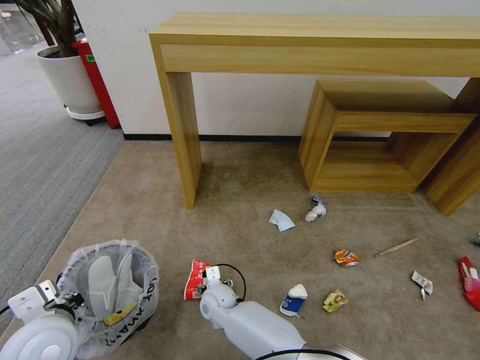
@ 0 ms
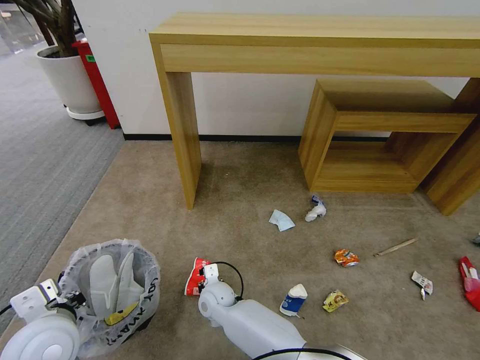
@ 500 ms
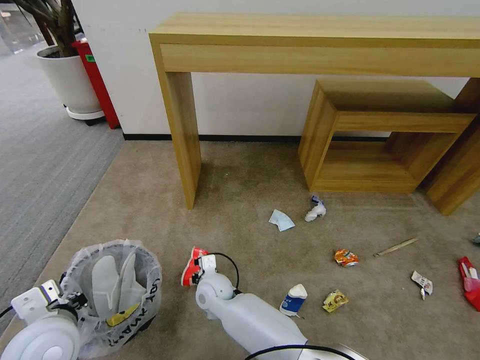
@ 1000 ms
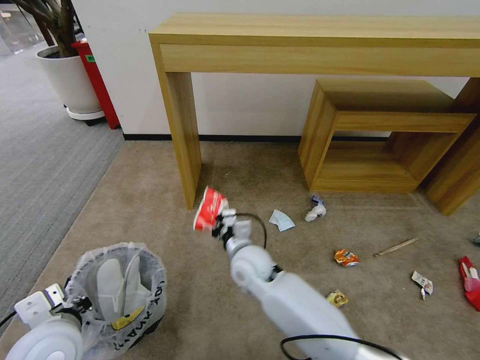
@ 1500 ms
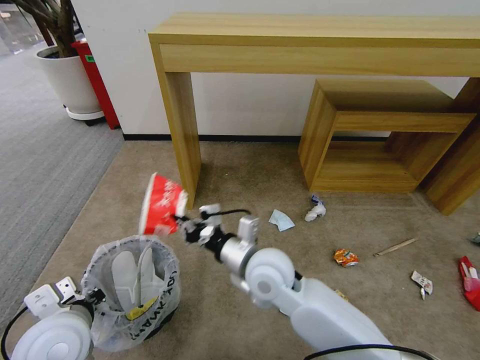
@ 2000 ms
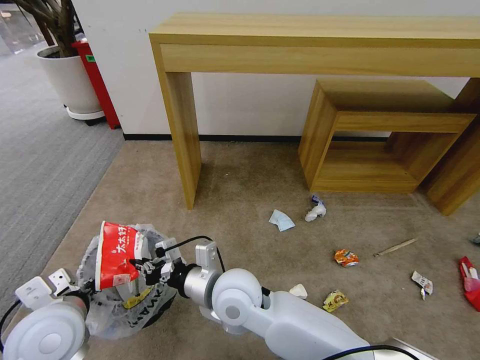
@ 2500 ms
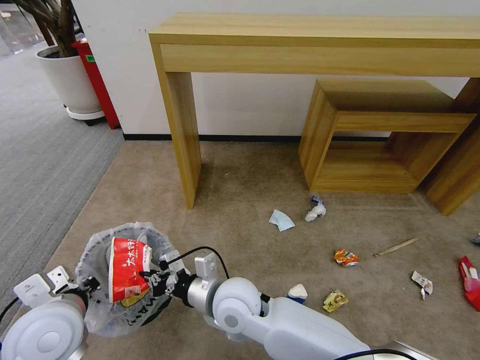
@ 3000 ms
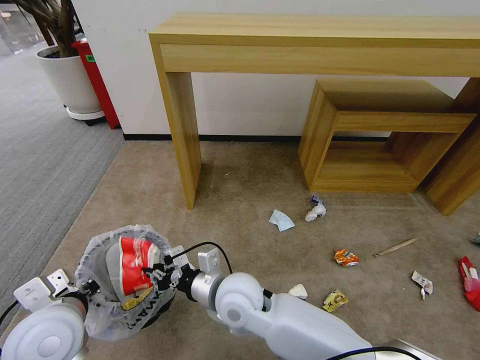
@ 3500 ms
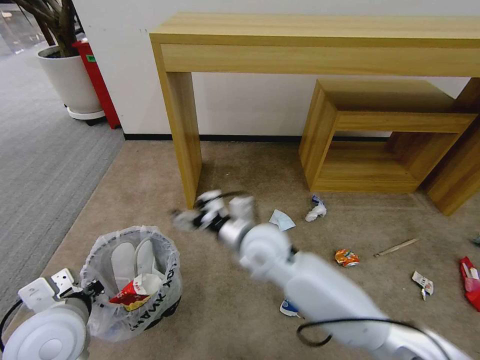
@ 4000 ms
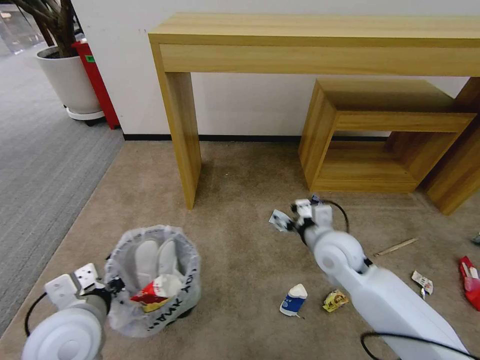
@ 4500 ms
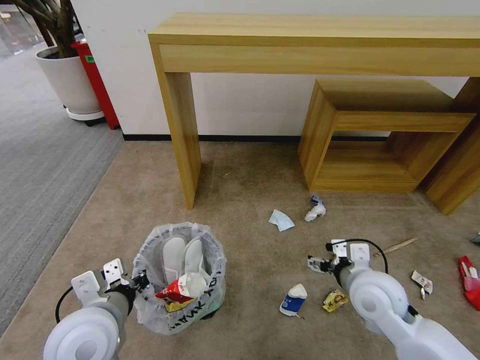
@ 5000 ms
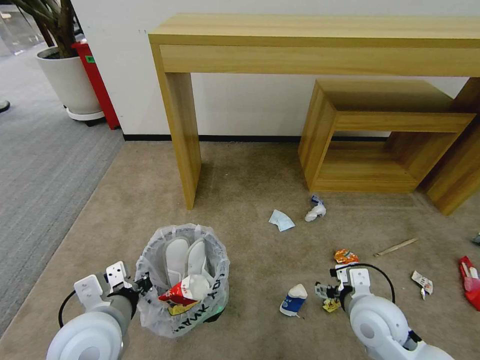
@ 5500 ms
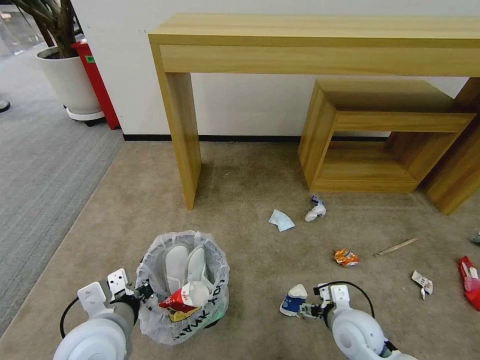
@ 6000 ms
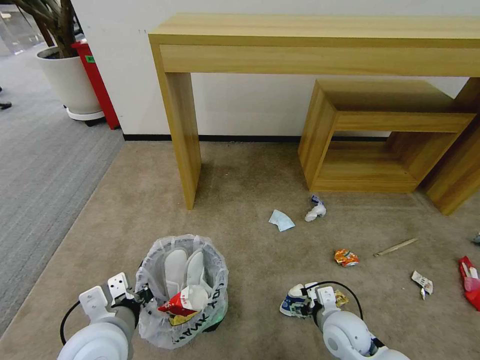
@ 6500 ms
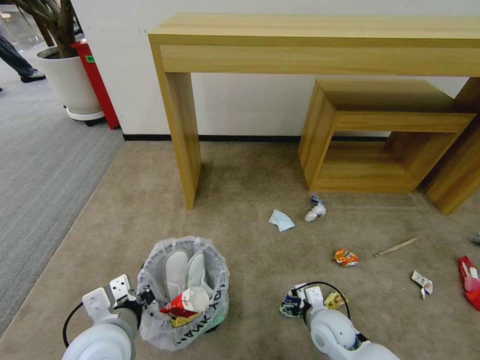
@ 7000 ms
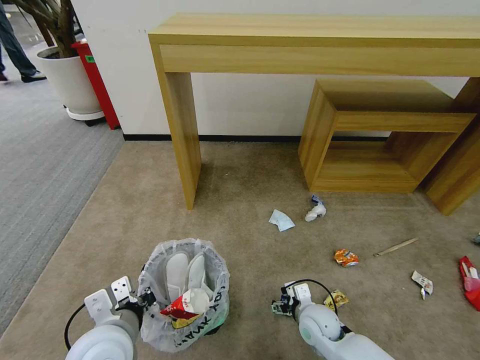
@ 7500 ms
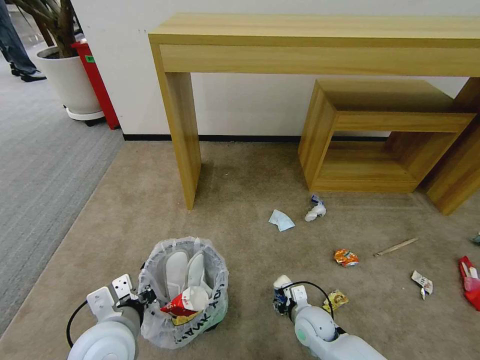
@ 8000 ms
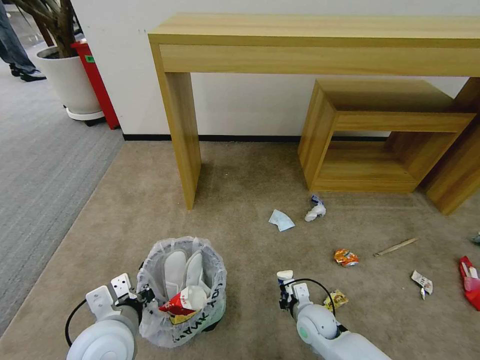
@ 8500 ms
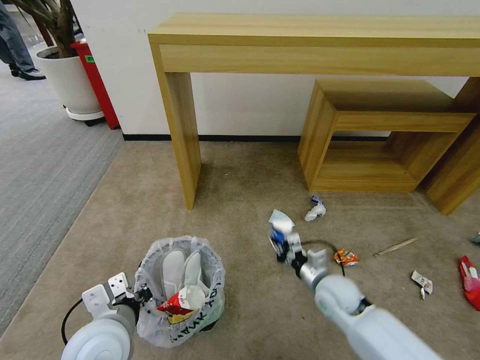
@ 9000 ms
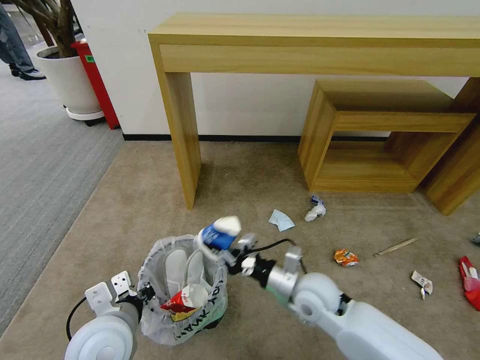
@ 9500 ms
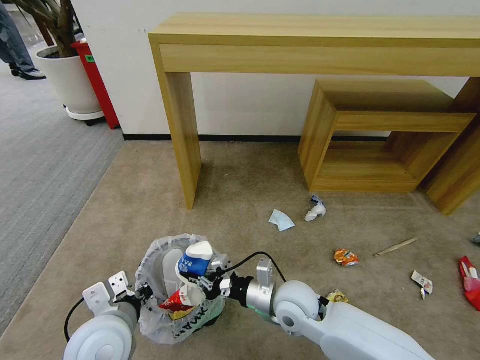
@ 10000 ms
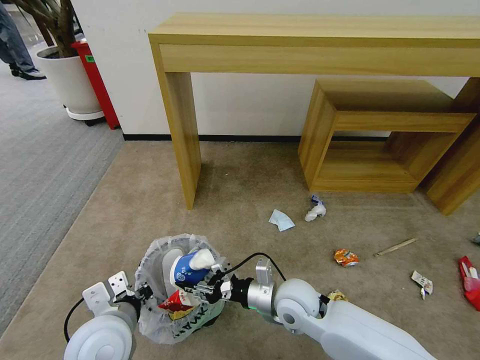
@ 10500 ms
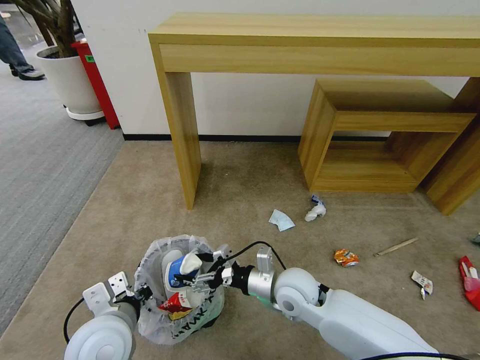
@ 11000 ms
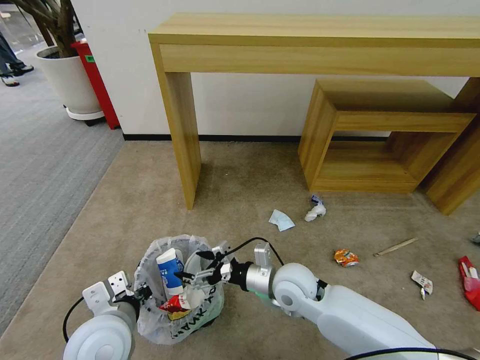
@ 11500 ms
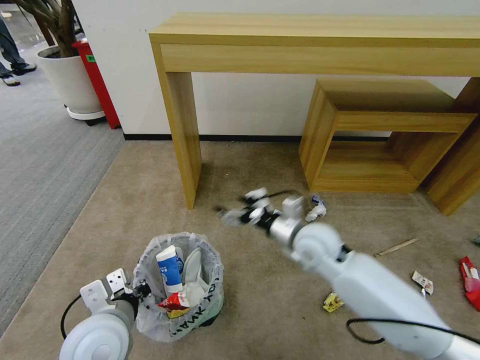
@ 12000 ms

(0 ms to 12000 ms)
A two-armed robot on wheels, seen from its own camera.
Task of the whole recording: Pick up the trash bin and place the garbage on the floor into it.
0 ms - 2000 ms: The right gripper goes roughly 25 cm upward and to the right, and closes.
2000 ms - 4000 ms: The right gripper opens.
4000 ms - 6000 ms: The left gripper is displaced to the right by some 5 cm. Meanwhile the right gripper heads to the right, downward and backward, covering roughly 30 cm.
6000 ms - 8000 ms: The right gripper is displaced downward and to the left by some 10 cm, and closes.
8000 ms - 10000 ms: The right gripper moves upward and to the left, approximately 15 cm, and closes.
10000 ms - 12000 ms: The right gripper goes approximately 15 cm forward, upward and to the right, and opens.

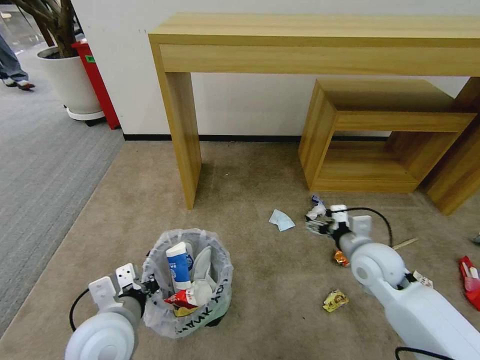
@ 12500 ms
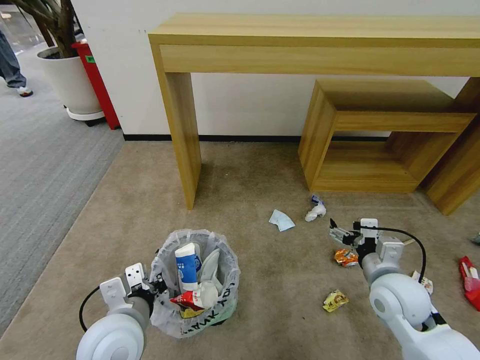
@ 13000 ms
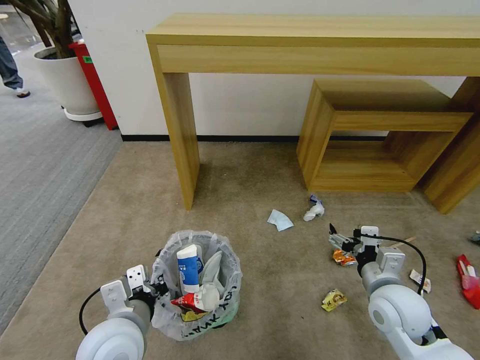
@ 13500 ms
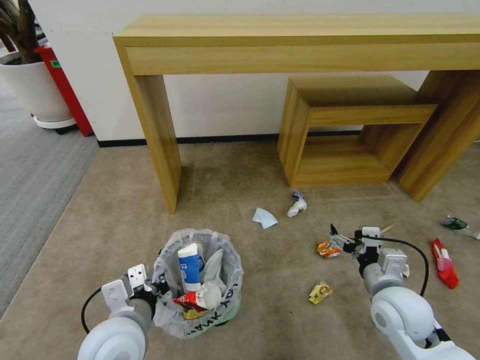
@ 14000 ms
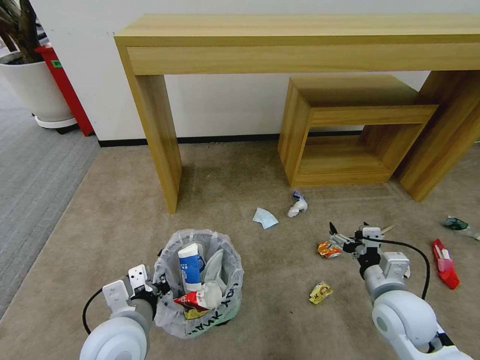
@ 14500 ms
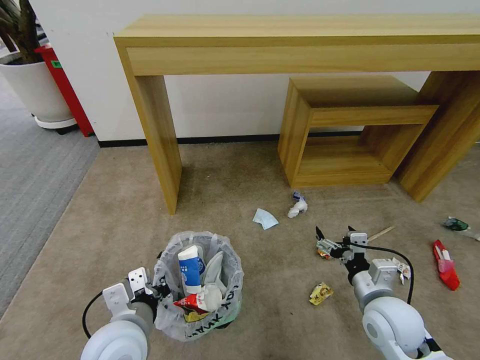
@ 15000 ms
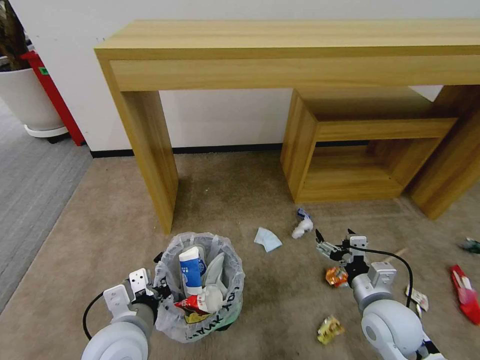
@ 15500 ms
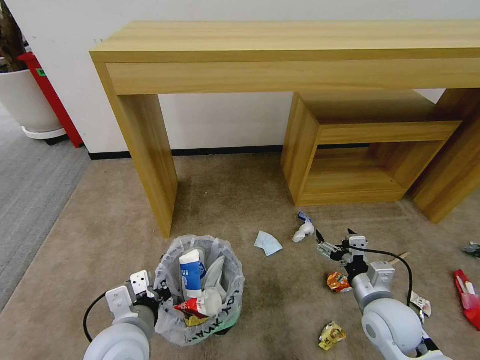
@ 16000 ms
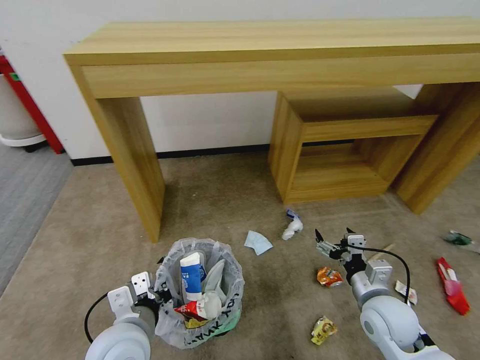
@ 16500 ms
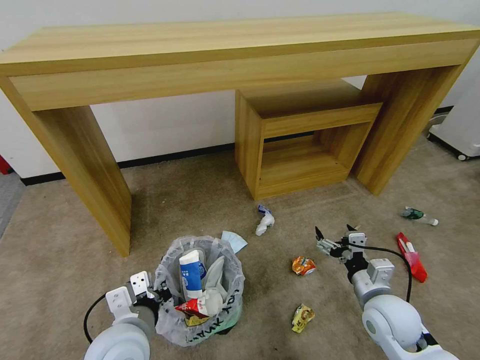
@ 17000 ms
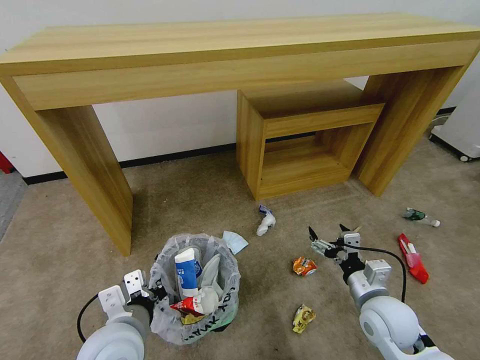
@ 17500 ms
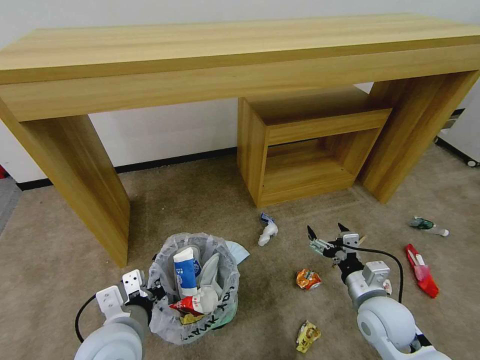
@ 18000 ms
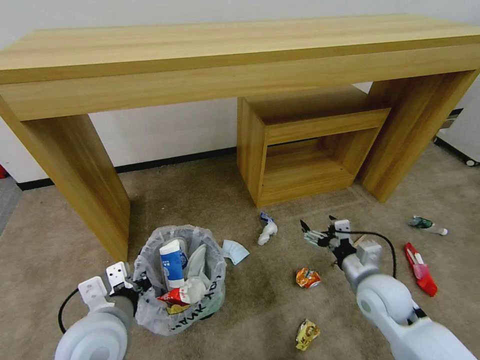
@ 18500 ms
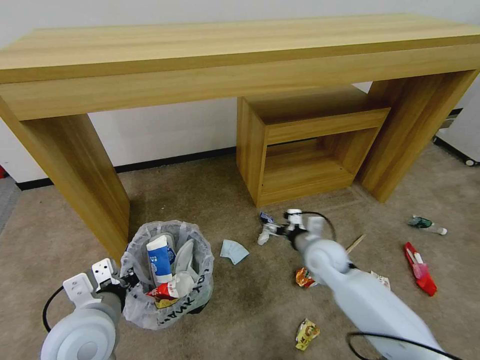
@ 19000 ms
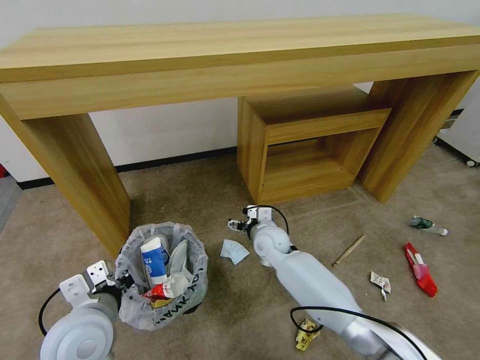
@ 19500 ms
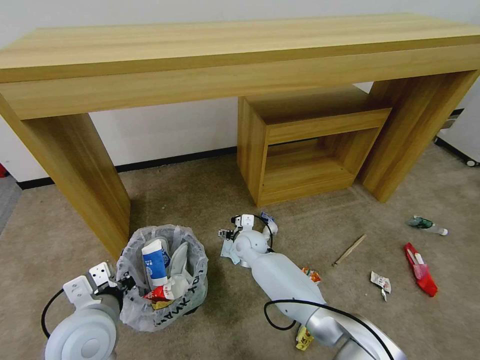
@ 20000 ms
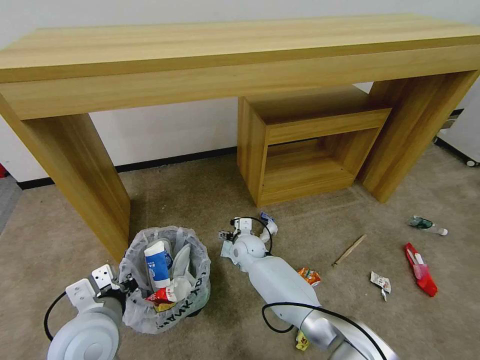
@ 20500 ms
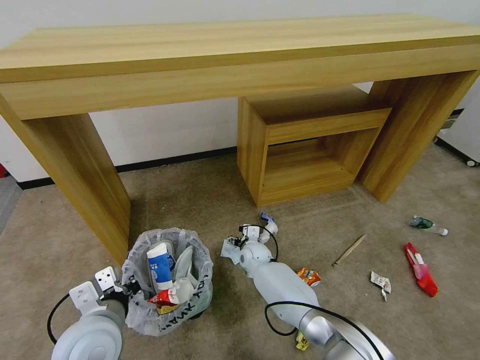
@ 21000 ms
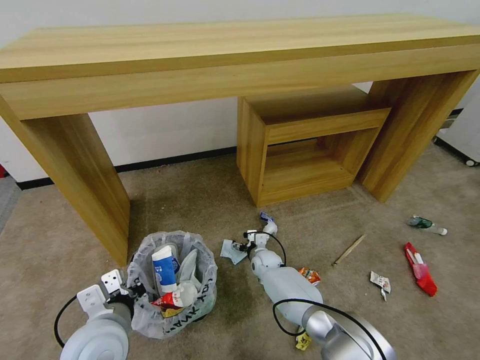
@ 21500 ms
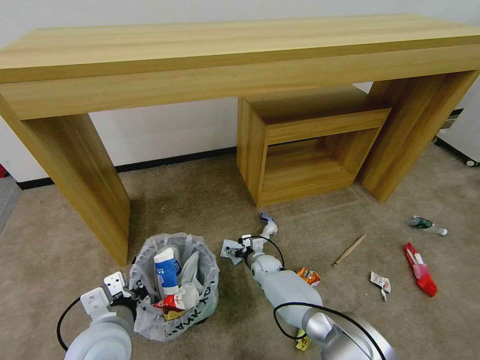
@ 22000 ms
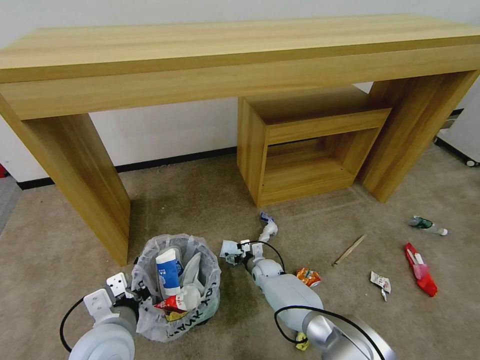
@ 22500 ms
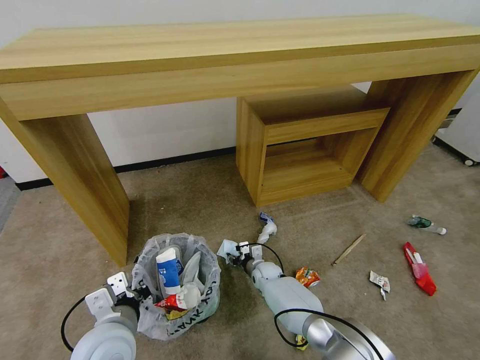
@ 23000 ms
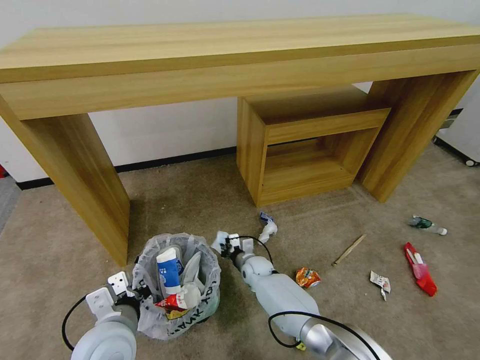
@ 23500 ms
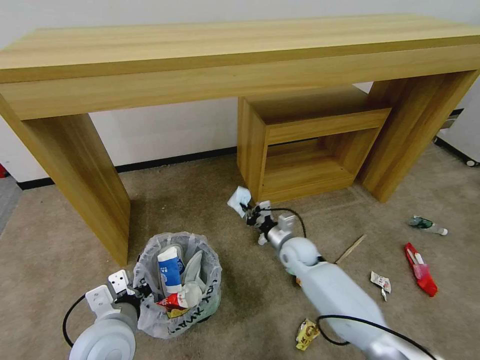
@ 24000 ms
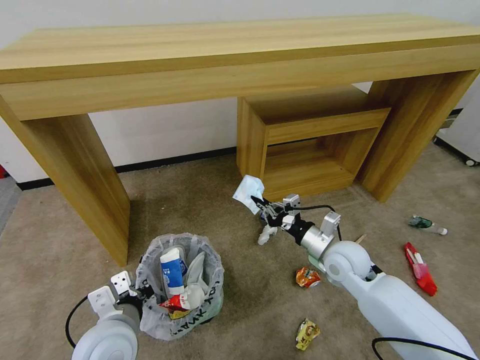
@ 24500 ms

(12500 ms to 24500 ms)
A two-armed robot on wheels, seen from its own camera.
Task of the whole recording: Pick up the trash bin and place the garbage on the floor into it.
12500 ms - 14500 ms: The right gripper travels backward by about 10 cm.
18500 ms - 20500 ms: The right gripper shifts approximately 35 cm to the left and forward.
20500 ms - 22500 ms: The right gripper moves downward and to the right, some 15 cm.
22500 ms - 24500 ms: The right gripper heads upward and to the right, covering about 30 cm, and closes its fingers.

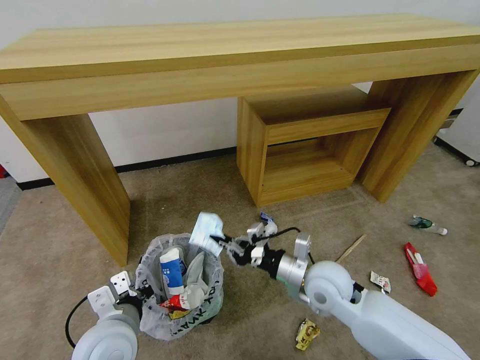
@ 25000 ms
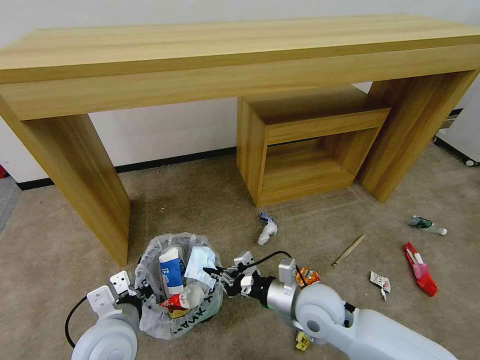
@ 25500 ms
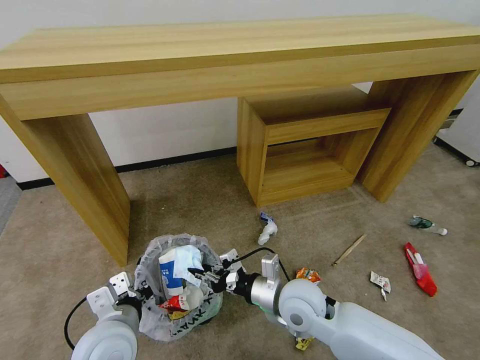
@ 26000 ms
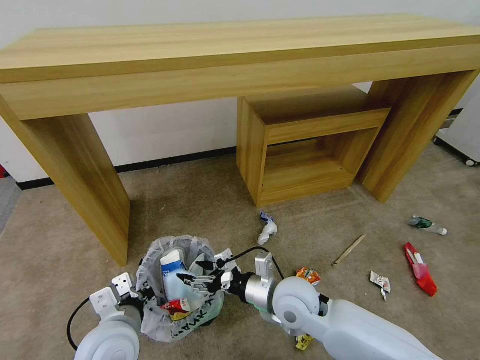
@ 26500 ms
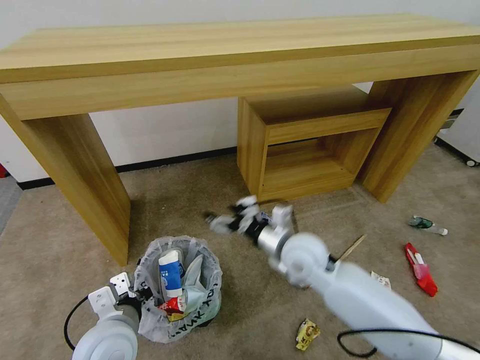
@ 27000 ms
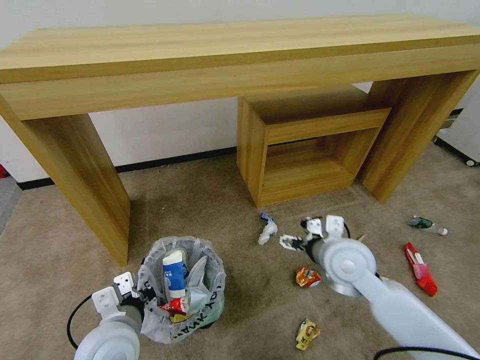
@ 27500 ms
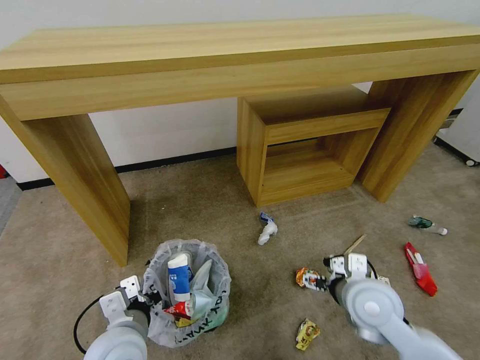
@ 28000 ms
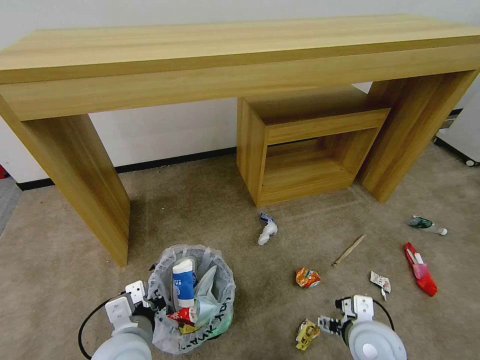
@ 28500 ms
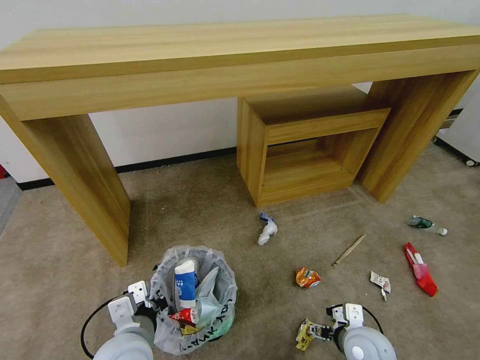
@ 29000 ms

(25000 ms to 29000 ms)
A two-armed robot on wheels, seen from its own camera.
Task of the whole recording: Pick up the trash bin and place the garbage on the floor into it.
25000 ms - 27000 ms: The right gripper moves to the left, roughly 5 cm, and opens.
27000 ms - 29000 ms: The right gripper travels to the right, downward and backward by roughly 25 cm.
